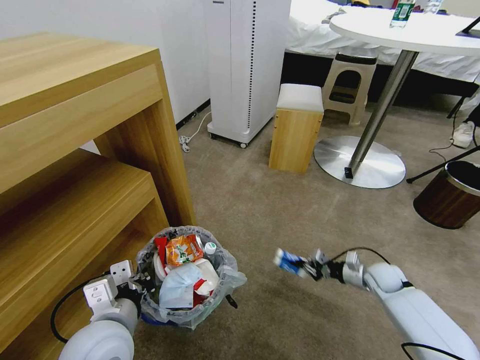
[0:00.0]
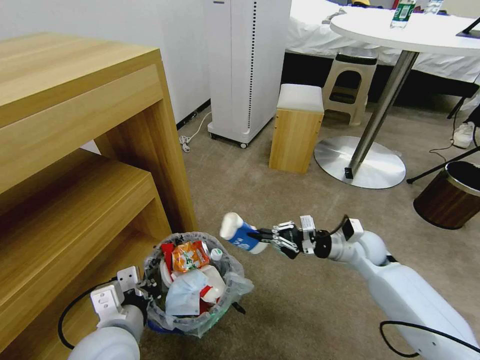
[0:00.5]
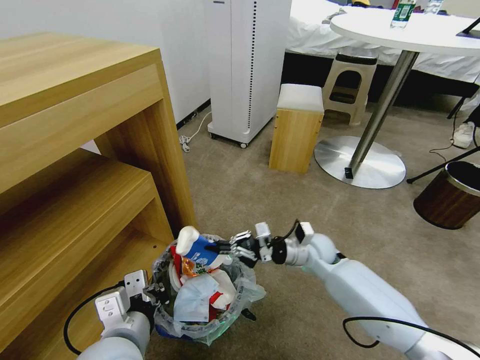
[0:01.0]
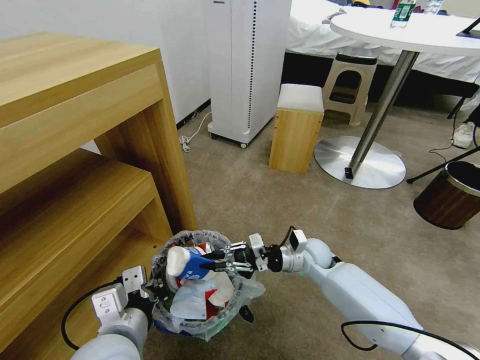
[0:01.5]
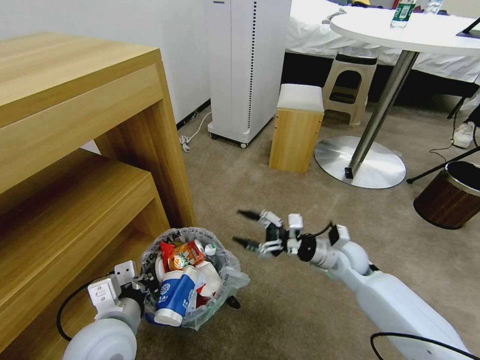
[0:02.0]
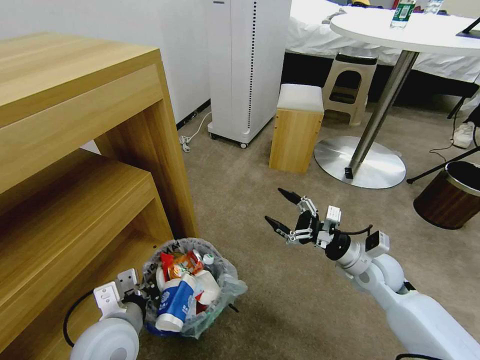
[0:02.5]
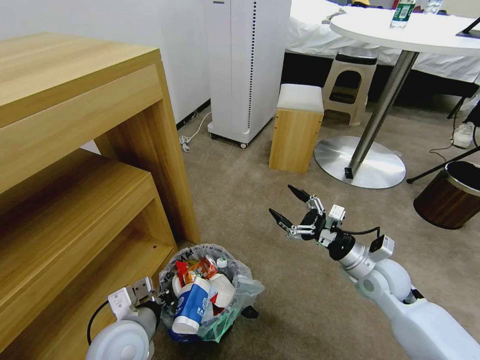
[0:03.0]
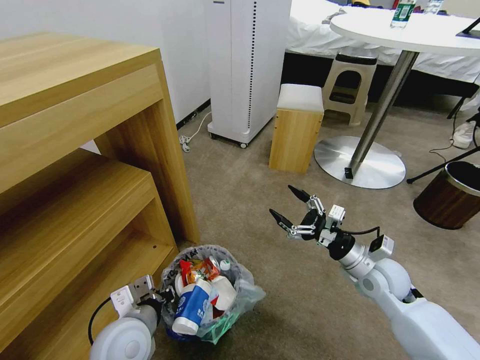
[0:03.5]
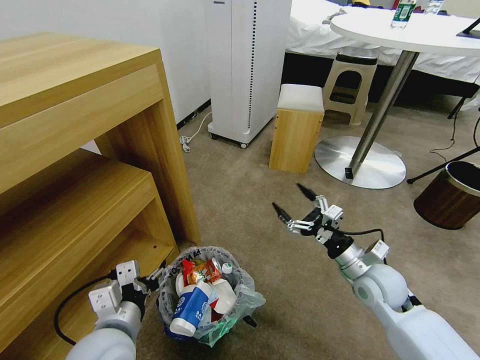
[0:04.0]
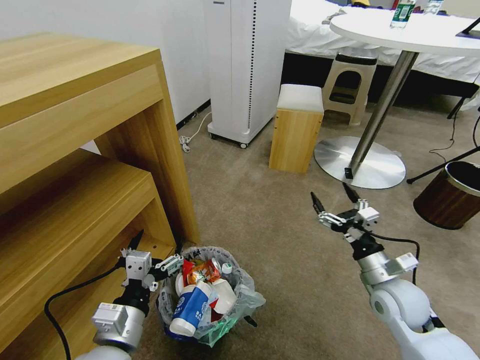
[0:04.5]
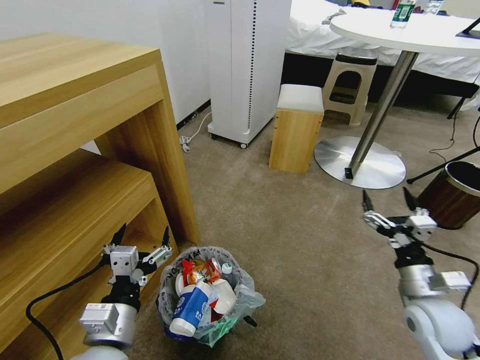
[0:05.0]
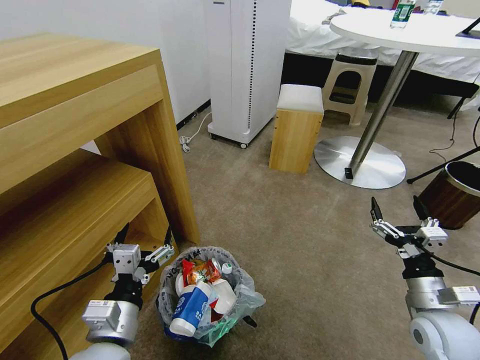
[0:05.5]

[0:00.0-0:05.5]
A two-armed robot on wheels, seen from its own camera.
Task of the whole recording: Pick up the trash bin and place the garbage on the floor into it.
0:00.0 to 0:02.0: The right gripper is displaced to the left and upward by some 20 cm, and opens.
0:02.0 to 0:03.5: The right gripper moves backward and to the right, about 10 cm. The left gripper travels downward by roughly 5 cm.
0:03.5 to 0:05.5: The right gripper moves backward and to the right, roughly 15 cm, while the left gripper moves roughly 5 cm, and opens.
